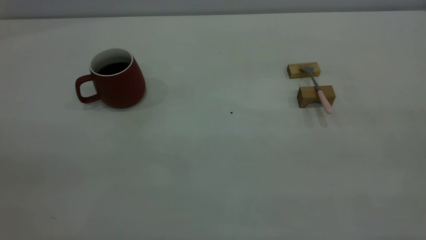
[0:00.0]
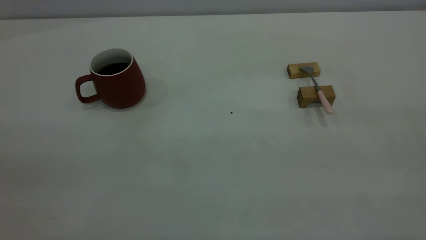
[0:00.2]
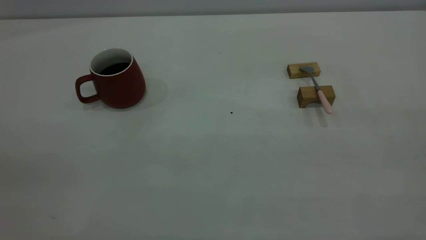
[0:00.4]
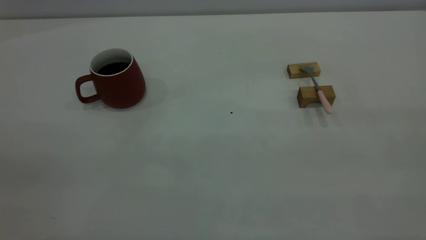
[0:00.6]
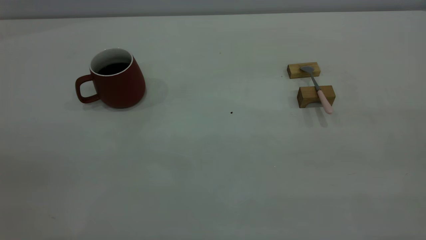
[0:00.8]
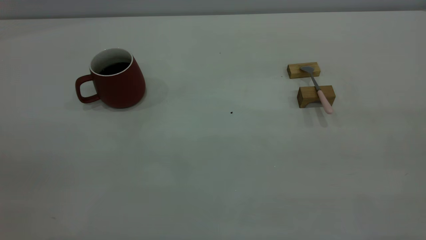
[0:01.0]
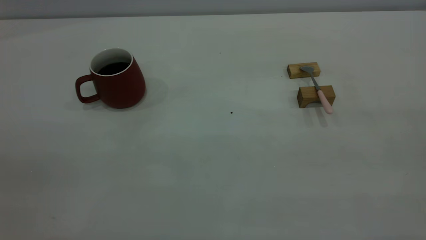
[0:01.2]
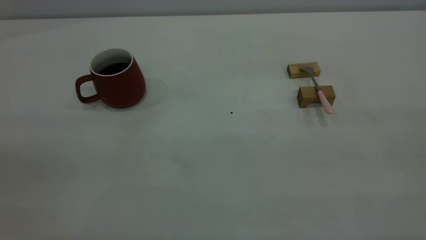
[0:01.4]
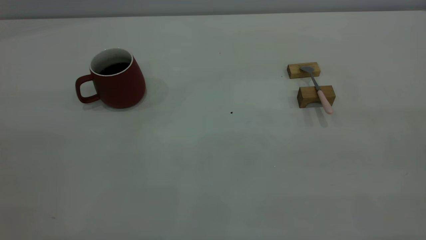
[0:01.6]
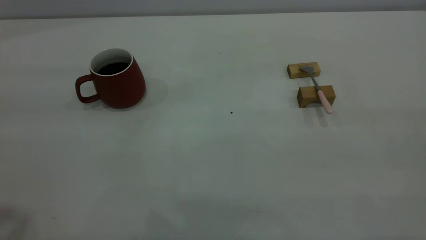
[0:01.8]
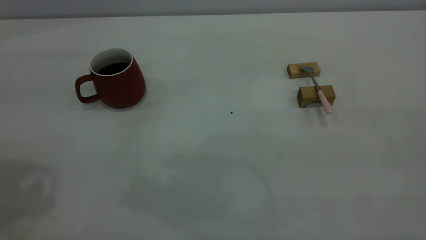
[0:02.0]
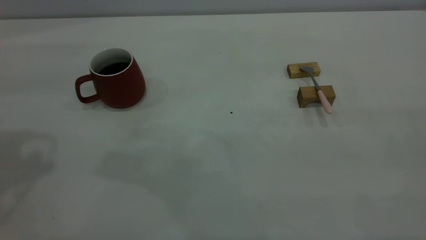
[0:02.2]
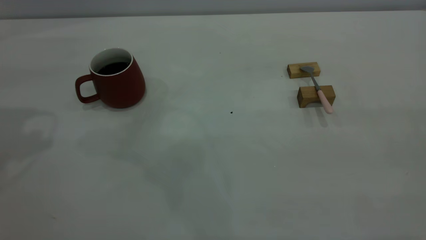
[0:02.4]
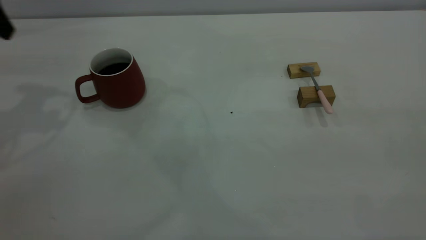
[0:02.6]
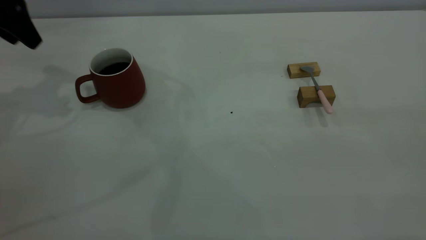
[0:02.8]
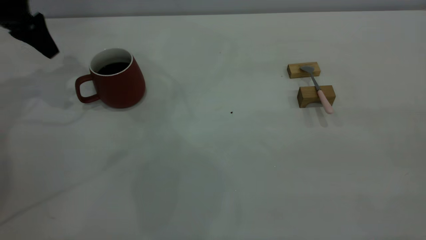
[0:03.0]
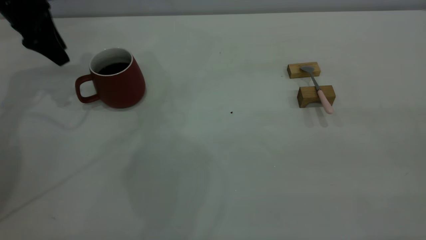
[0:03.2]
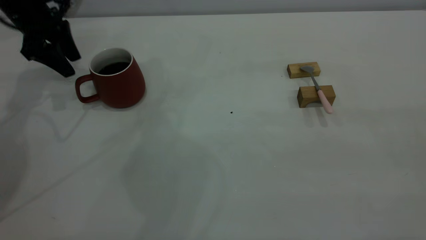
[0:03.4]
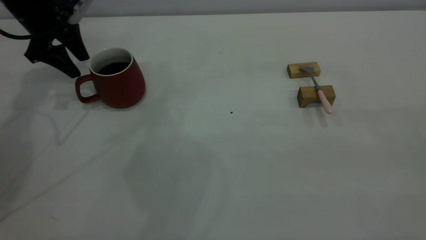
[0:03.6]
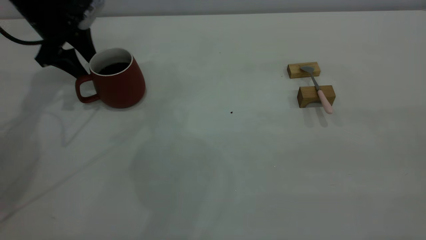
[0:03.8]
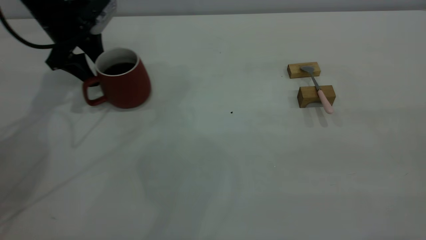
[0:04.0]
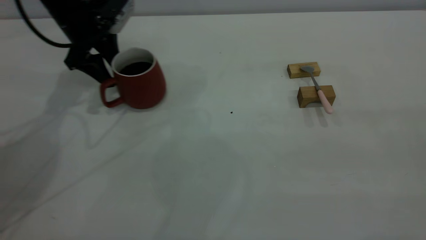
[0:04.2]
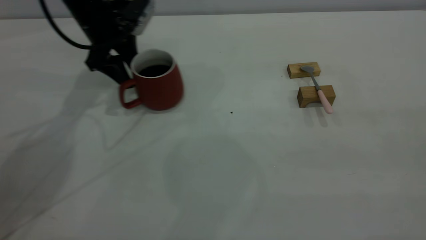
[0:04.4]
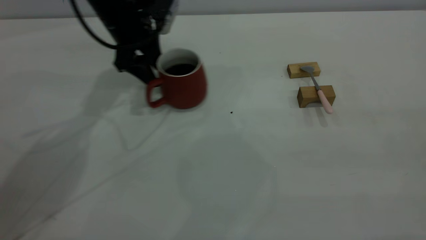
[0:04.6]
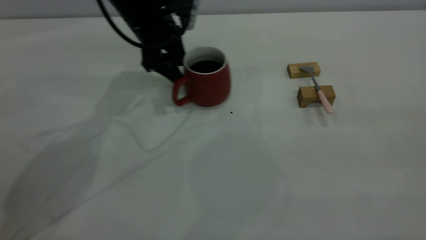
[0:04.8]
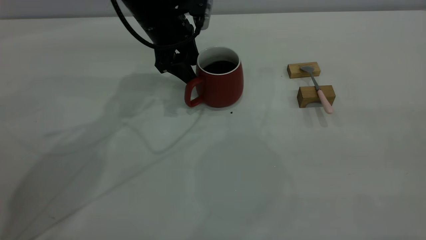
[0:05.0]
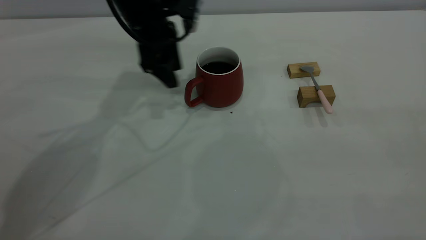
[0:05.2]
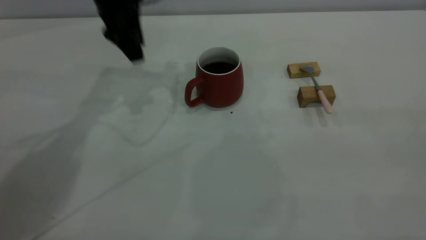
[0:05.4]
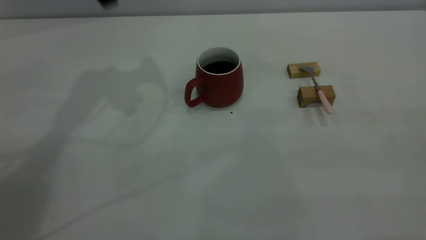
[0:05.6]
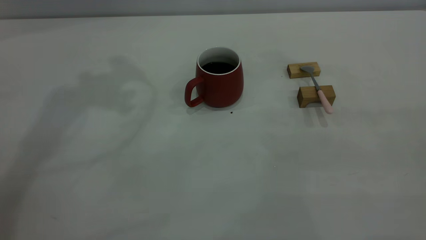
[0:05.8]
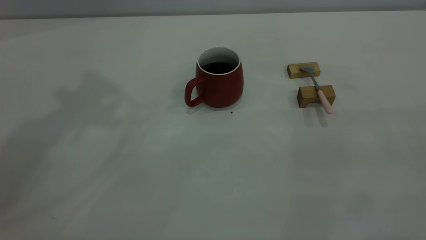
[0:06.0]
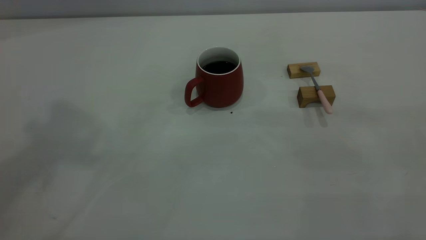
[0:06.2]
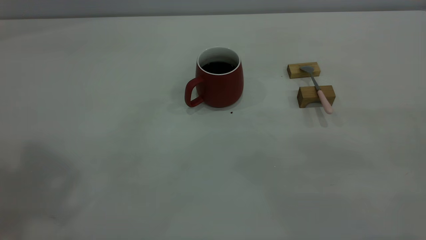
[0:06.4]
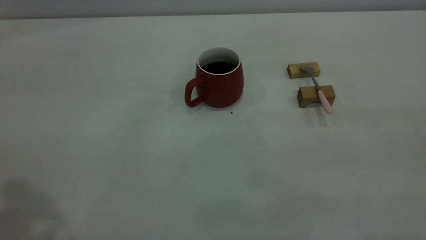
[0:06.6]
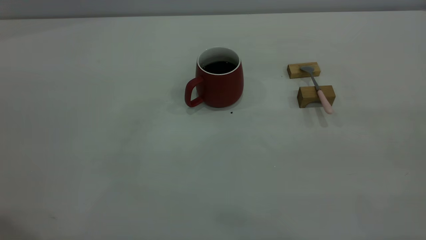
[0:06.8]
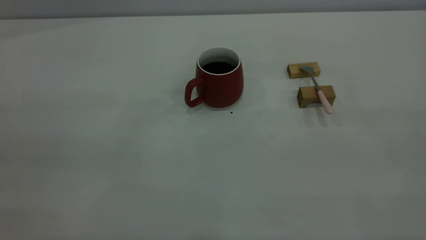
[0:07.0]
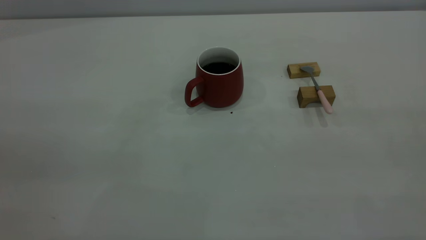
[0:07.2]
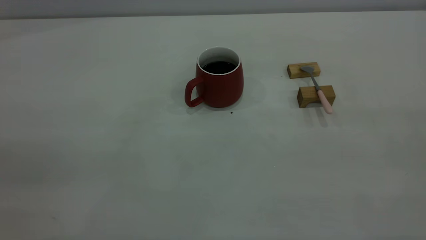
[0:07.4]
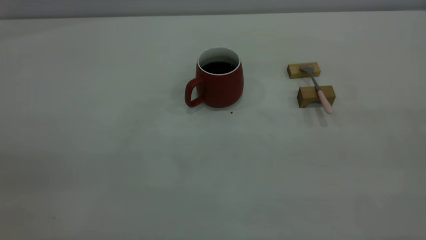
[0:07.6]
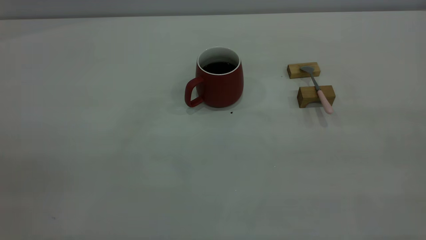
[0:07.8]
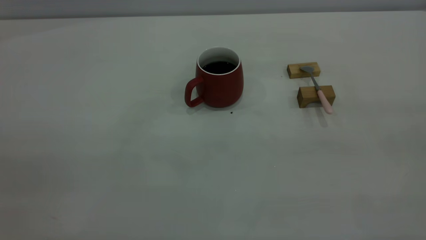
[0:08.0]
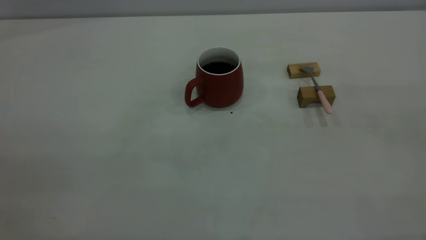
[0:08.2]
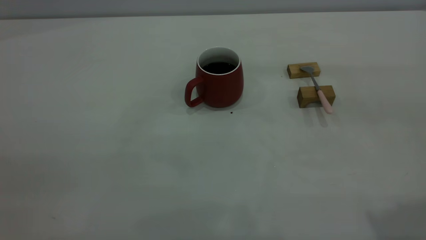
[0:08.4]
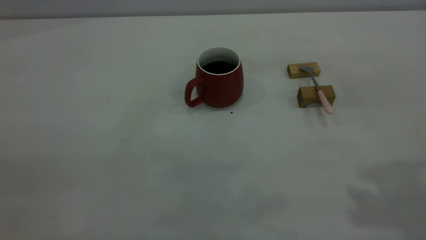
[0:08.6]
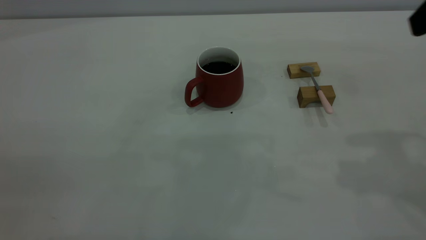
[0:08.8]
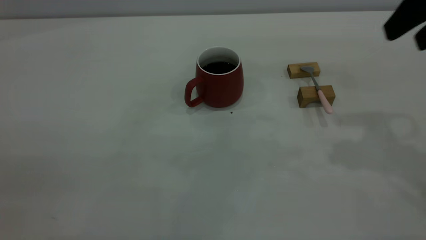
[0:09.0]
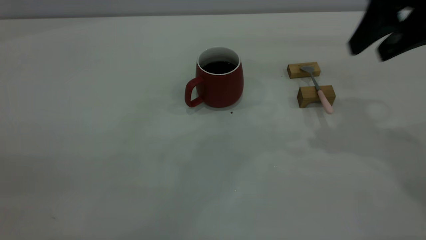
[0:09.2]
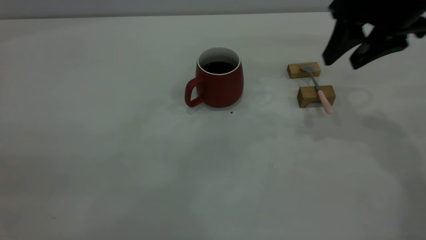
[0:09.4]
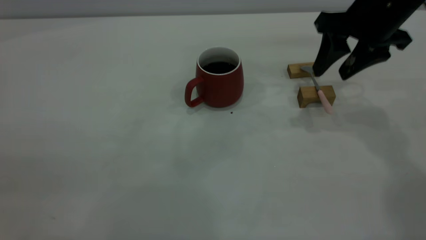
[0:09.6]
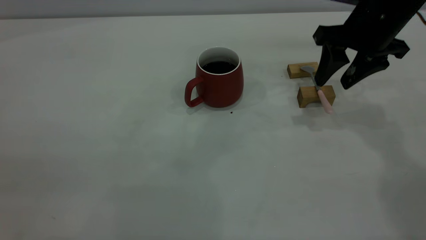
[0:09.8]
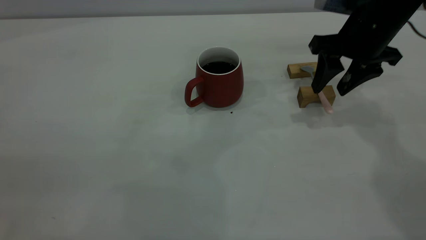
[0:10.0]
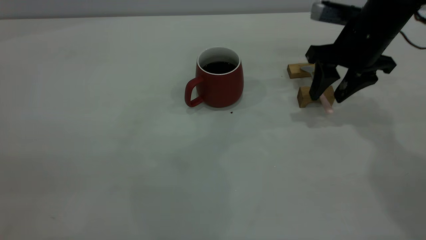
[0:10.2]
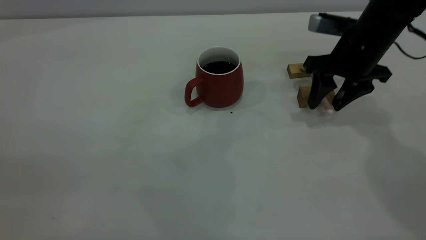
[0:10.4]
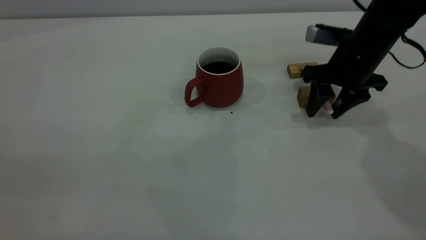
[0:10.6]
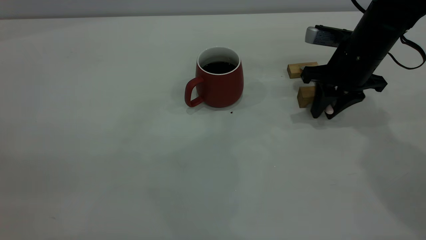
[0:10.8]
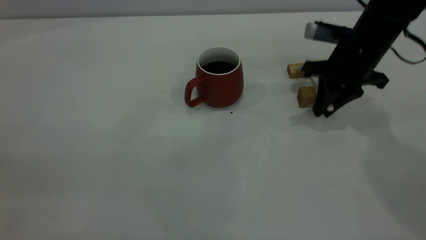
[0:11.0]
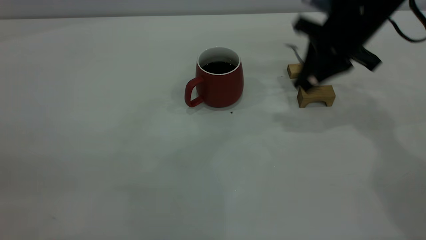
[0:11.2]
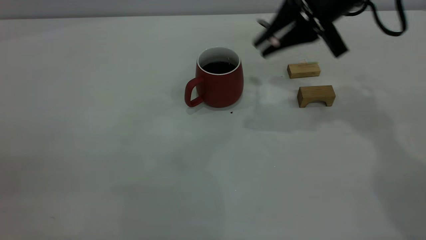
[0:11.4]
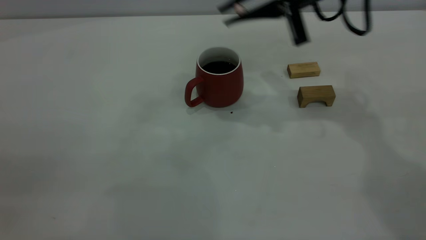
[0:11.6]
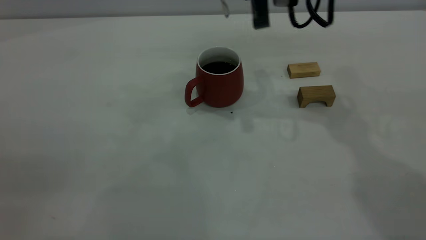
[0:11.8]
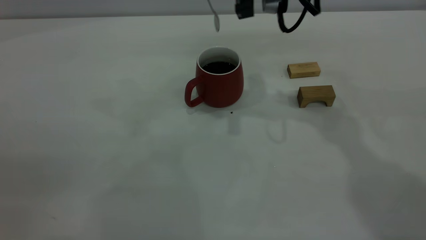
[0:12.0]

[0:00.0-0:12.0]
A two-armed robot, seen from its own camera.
Step, 0:00.0 to 0:05.0: Move the cup with coffee to the center of view.
Step, 0:05.2 to 0:11.0: Pick up the spoon.
0:01.6 to 0:03.0: The left gripper heads forward and downward, covering some 50 cm.
0:03.0 to 0:04.4: The left gripper goes roughly 15 cm to the right and downward.
0:04.4 to 0:06.0: The left gripper is displaced upward by roughly 40 cm.
0:07.6 to 0:09.0: The right gripper travels forward by some 30 cm, and opens up.
0:09.0 to 0:10.4: The right gripper heads downward and forward, covering approximately 20 cm.
0:10.4 to 0:12.0: The right gripper heads to the left and upward, covering roughly 20 cm, and closes up.

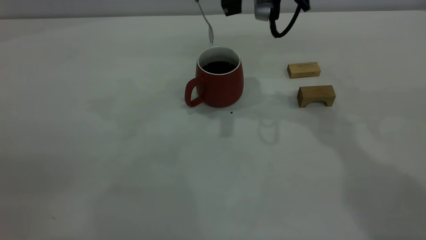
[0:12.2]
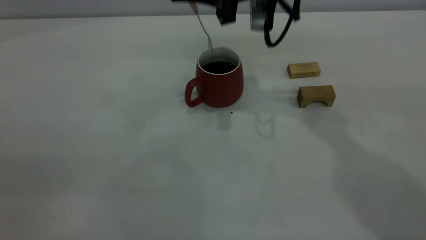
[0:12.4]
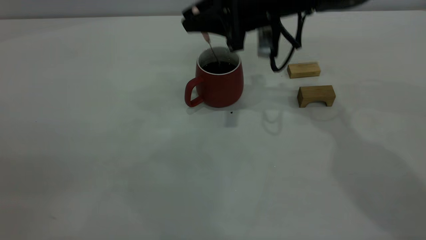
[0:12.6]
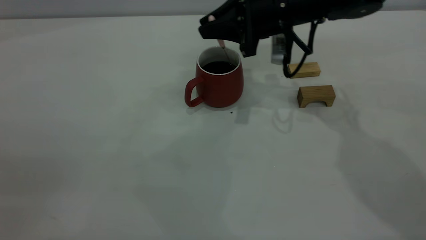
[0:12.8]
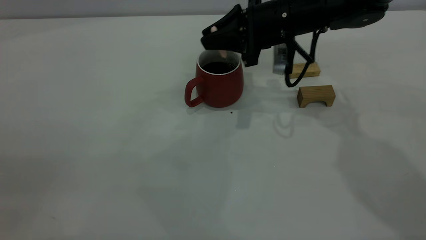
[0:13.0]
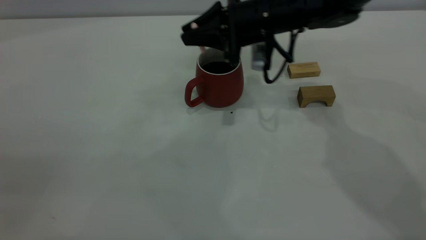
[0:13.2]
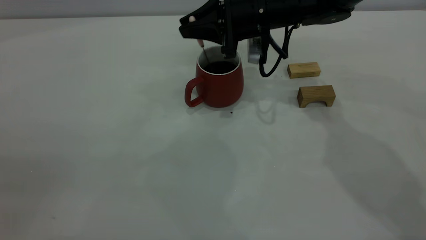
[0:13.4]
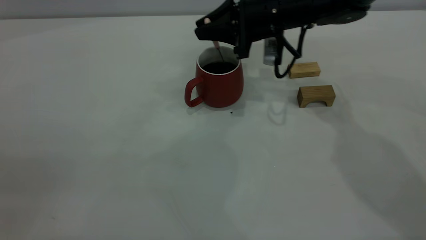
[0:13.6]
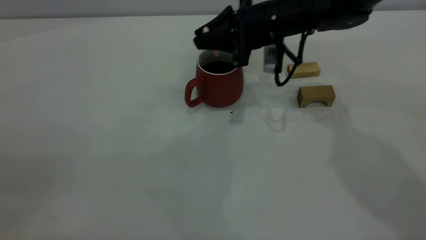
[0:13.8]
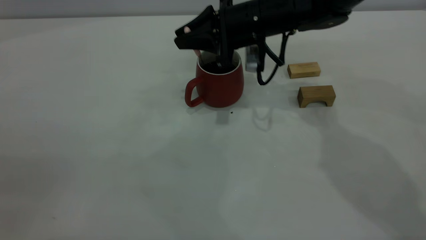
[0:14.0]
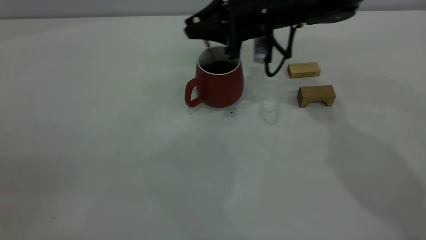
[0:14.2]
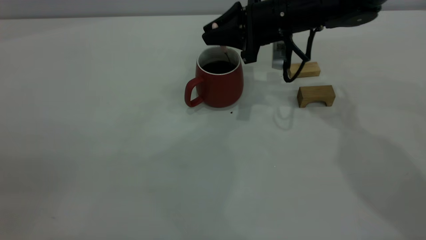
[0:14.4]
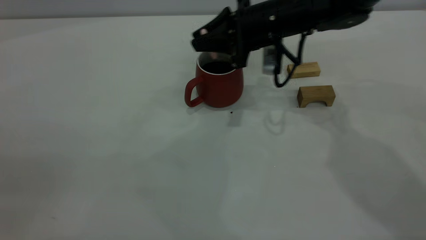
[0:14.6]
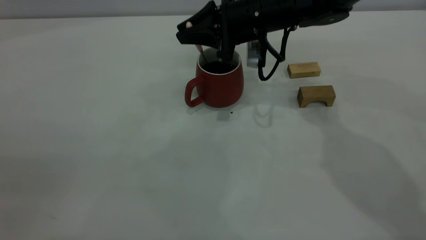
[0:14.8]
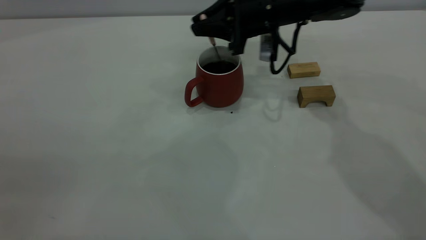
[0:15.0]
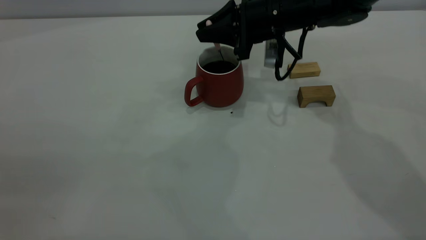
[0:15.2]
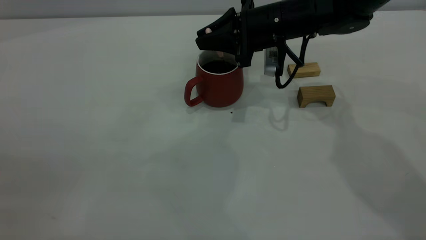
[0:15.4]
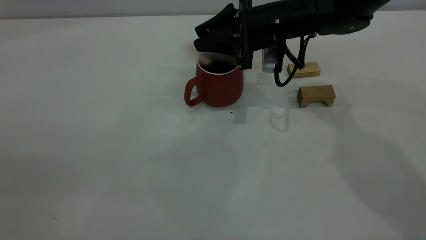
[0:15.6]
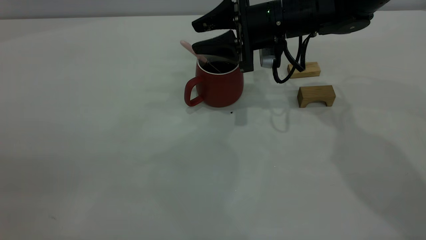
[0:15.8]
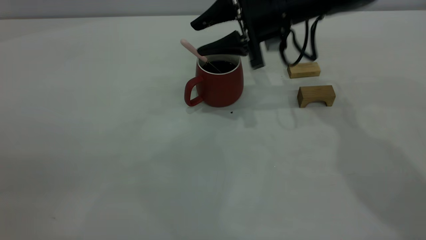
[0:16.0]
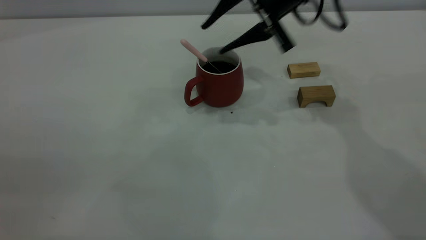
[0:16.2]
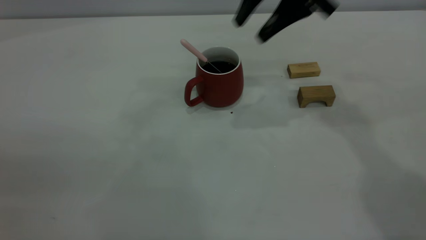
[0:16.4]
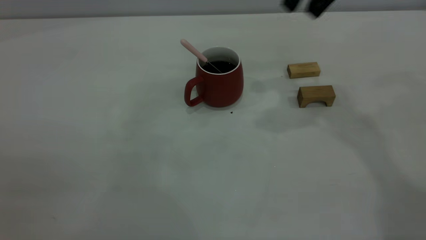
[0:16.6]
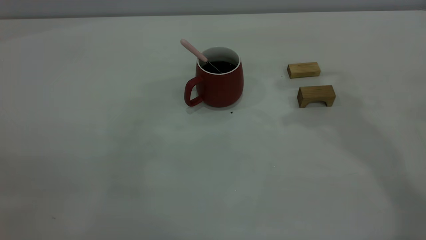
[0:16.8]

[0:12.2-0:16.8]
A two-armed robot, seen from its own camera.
Step, 0:12.2 to 0:16.0: Stir the coffee in the cup.
0:12.2 to 0:13.8: The right gripper goes about 10 cm downward.
0:13.8 to 0:15.2: There are only small adjustments of the grippers.
0:15.2 to 0:16.8: The right gripper travels upward by some 25 cm, and opens up.
